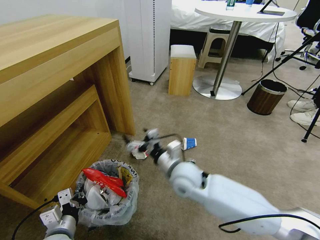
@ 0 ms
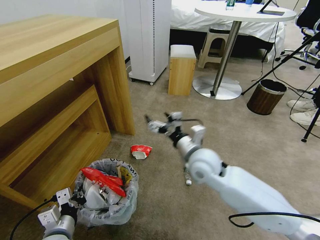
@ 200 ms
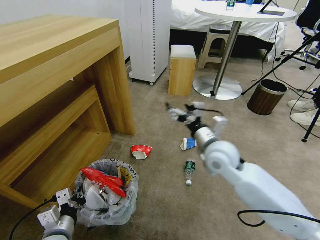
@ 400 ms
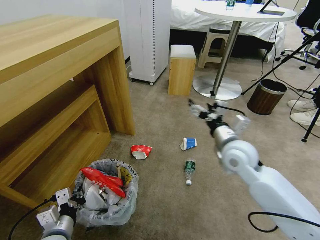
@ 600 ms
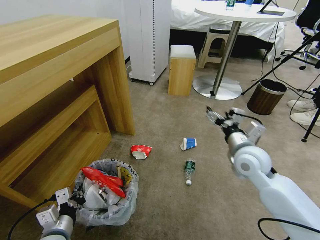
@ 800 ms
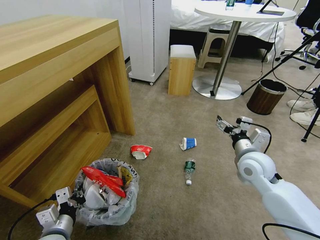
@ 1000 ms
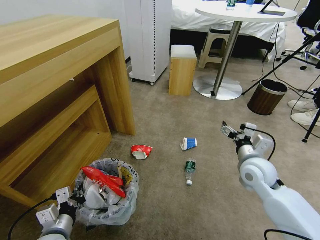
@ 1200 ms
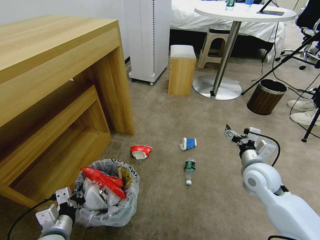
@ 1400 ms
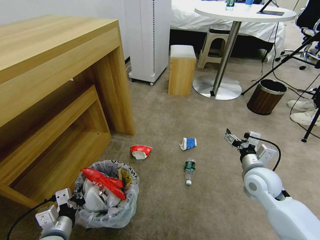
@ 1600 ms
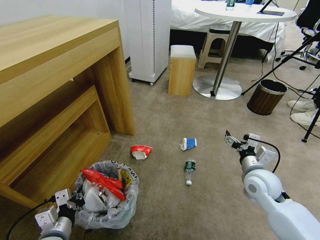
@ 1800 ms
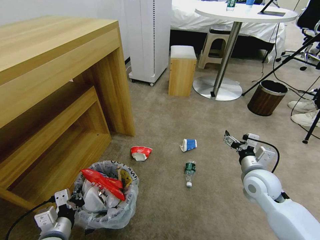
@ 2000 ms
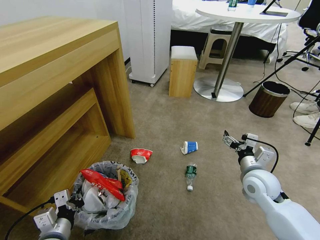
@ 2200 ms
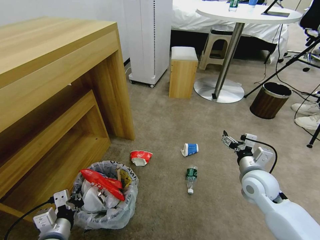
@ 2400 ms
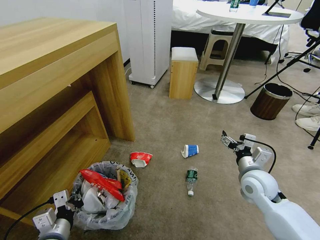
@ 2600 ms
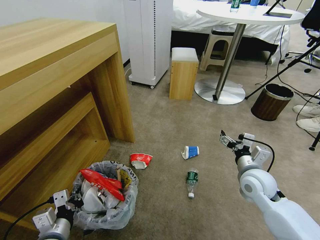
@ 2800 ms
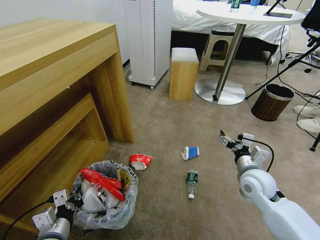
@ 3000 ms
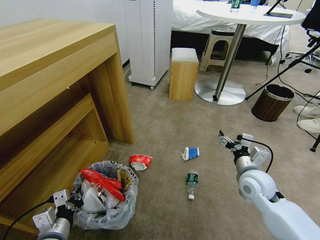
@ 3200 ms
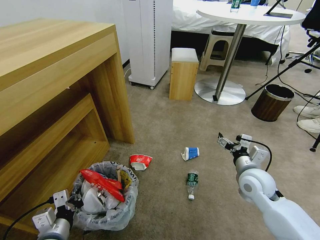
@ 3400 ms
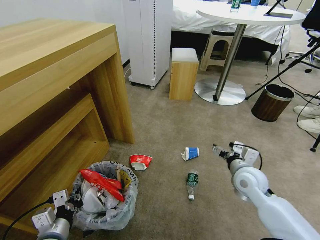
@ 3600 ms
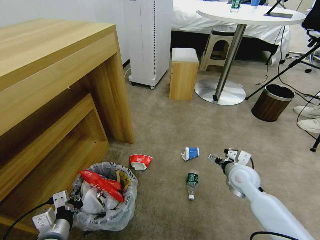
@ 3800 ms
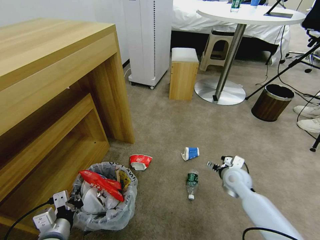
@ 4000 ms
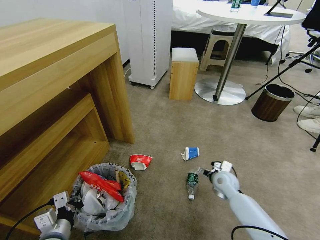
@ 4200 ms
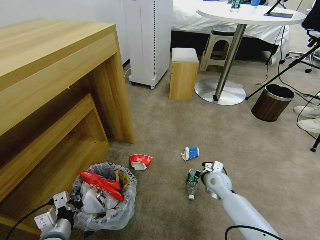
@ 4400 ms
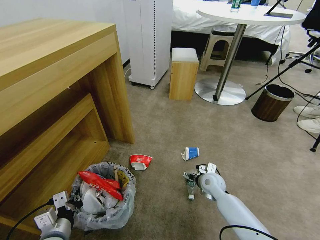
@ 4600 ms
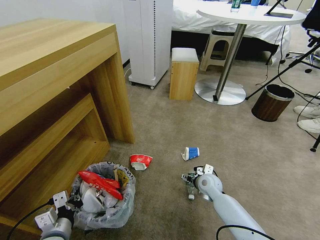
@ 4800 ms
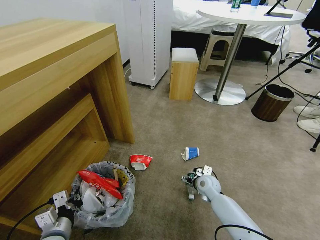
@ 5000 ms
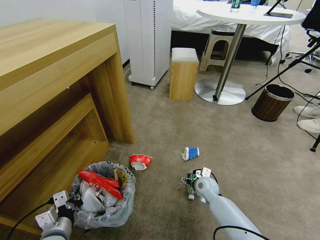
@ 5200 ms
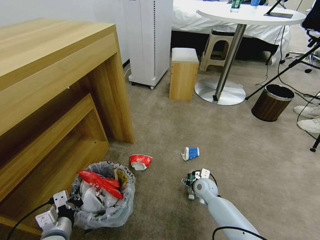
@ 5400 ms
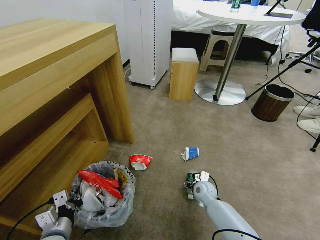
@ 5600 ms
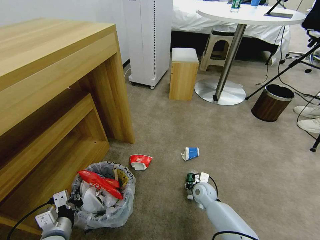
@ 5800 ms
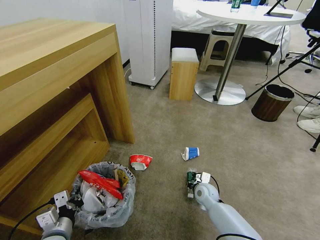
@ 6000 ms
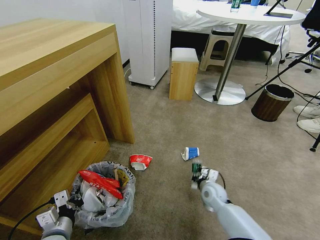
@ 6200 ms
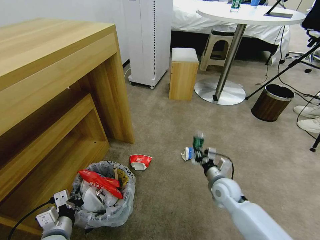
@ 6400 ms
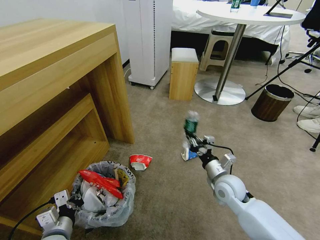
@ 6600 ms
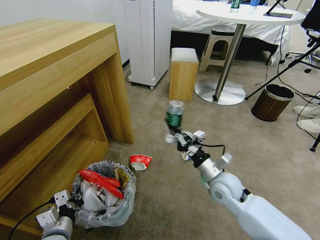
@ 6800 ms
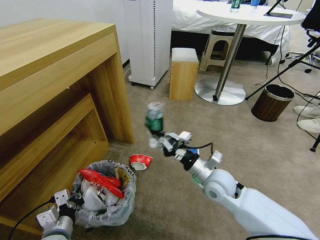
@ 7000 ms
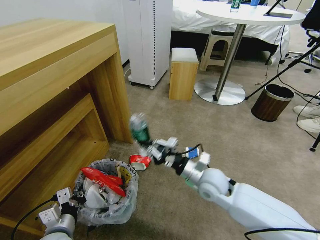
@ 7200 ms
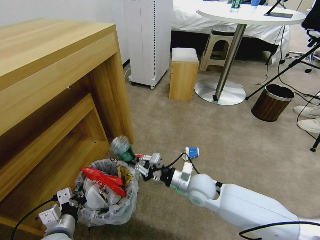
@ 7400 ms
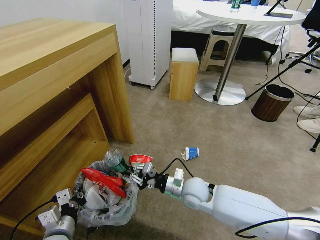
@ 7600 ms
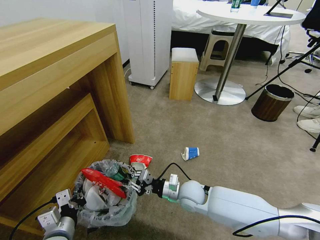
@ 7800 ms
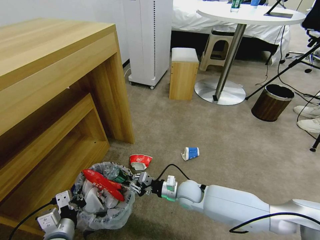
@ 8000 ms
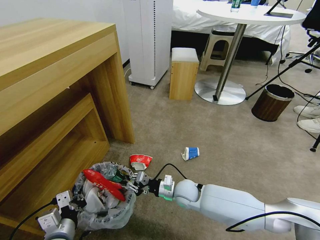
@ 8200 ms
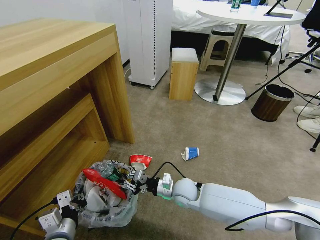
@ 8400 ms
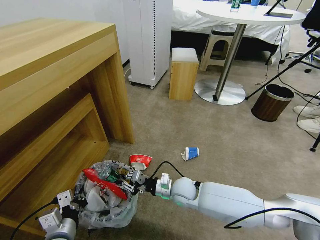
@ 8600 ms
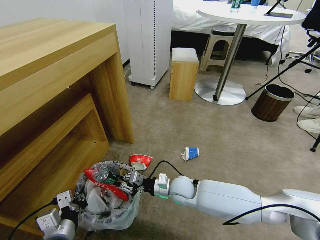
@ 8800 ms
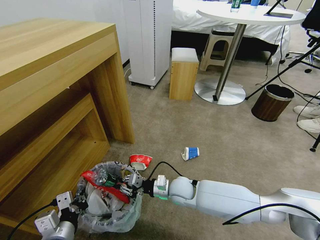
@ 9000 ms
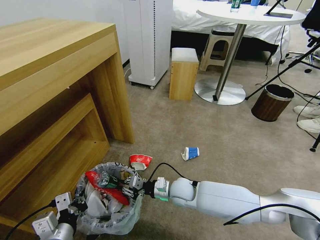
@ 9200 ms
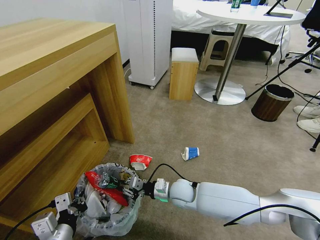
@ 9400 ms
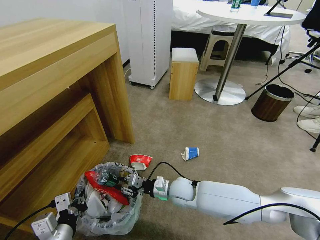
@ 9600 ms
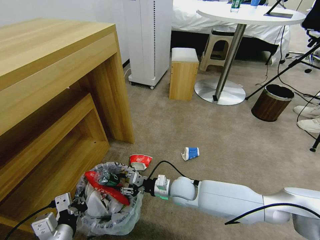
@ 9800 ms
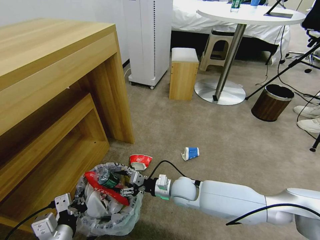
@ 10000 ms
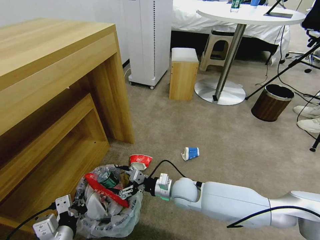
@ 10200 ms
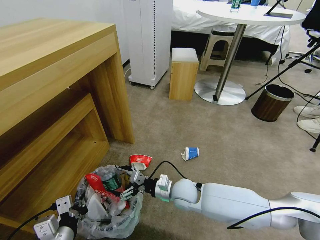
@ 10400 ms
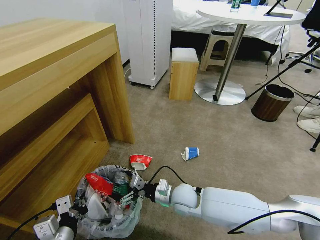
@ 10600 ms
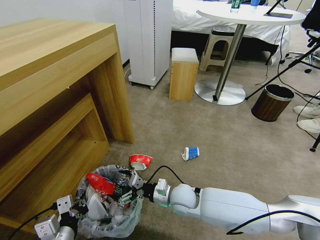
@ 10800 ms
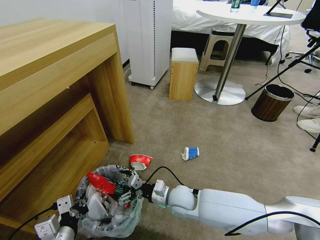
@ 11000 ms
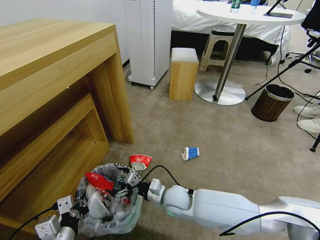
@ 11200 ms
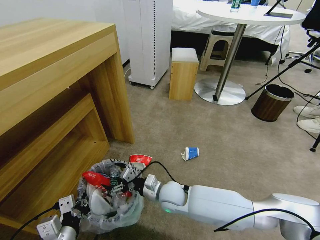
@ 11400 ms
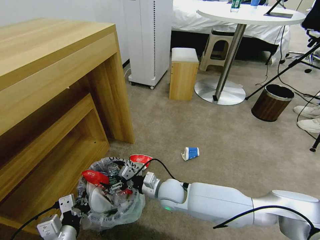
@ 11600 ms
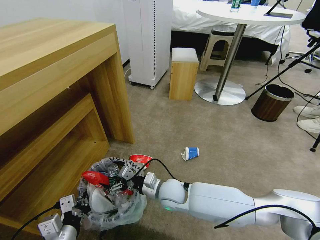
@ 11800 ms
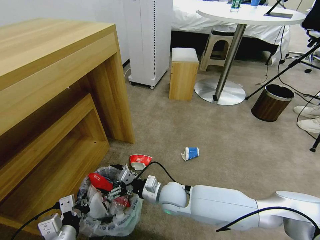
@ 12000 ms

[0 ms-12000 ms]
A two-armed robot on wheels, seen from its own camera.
Task of the whole recording: Pick up the trash bin and place the garbage on the floor into it.
0 ms to 1600 ms: The right gripper shifts some 25 cm to the right.
3000 ms to 4400 ms: The right gripper travels downward, to the left and forward by approximately 15 cm.
4400 ms to 6000 ms: The right gripper travels downward by roughly 5 cm, and closes its fingers.
6000 ms to 7600 ms: The right gripper goes some 15 cm upward and to the left.
7600 ms to 9000 ms: The right gripper ends up approximately 5 cm from where it was.
9000 ms to 10400 ms: The right gripper opens its fingers.
10400 ms to 12000 ms: The grippers move only a little.

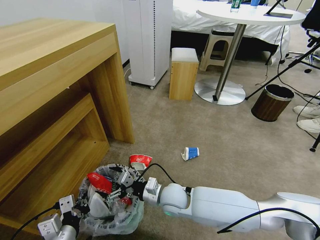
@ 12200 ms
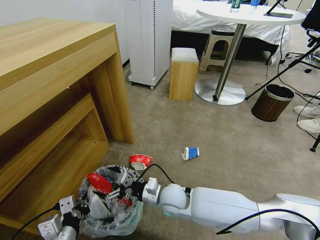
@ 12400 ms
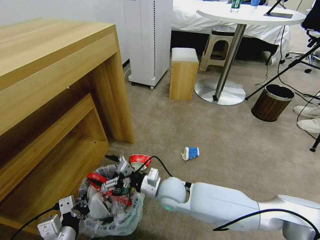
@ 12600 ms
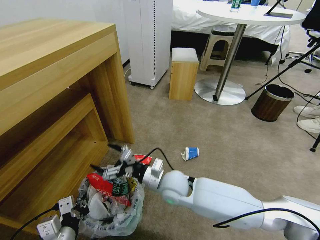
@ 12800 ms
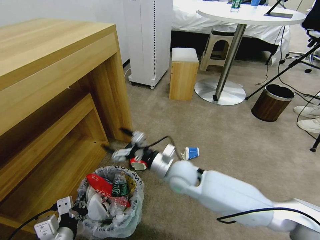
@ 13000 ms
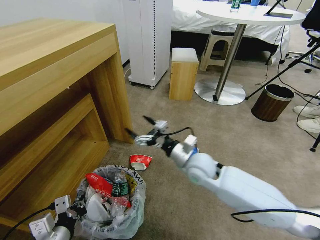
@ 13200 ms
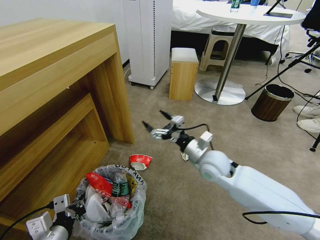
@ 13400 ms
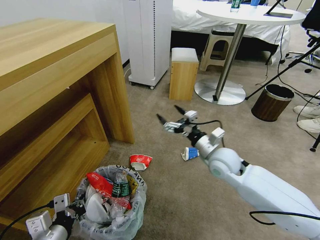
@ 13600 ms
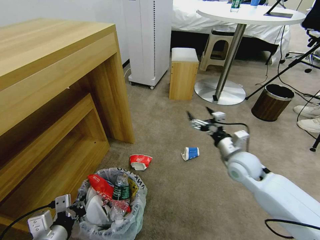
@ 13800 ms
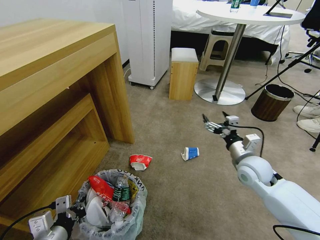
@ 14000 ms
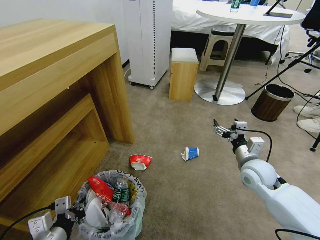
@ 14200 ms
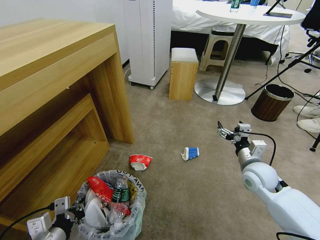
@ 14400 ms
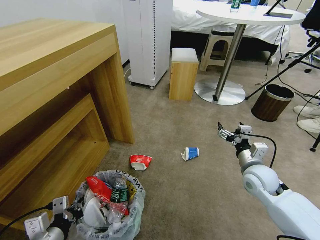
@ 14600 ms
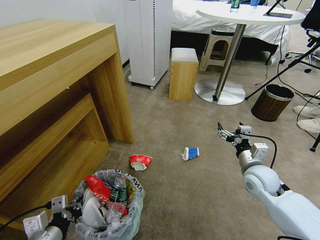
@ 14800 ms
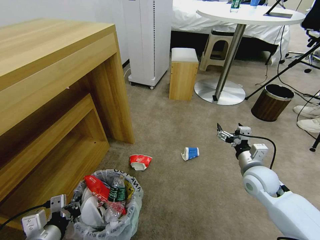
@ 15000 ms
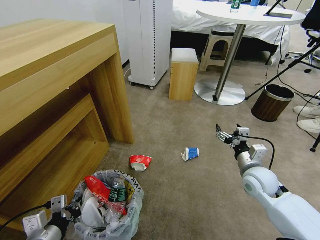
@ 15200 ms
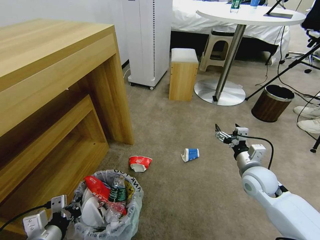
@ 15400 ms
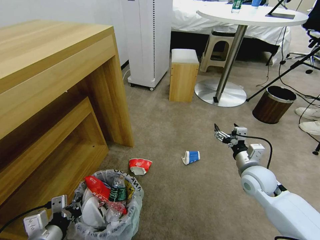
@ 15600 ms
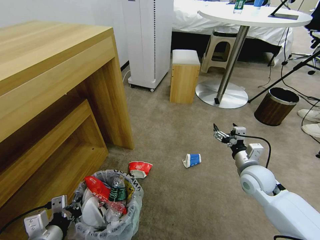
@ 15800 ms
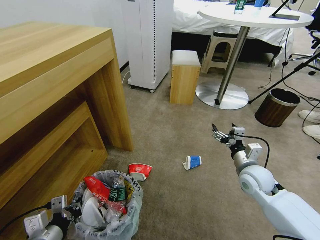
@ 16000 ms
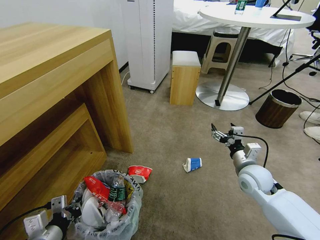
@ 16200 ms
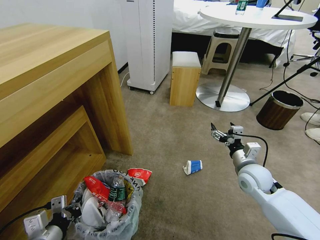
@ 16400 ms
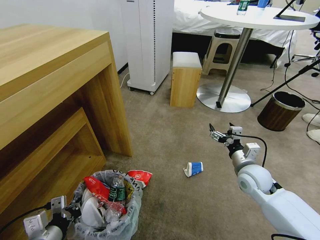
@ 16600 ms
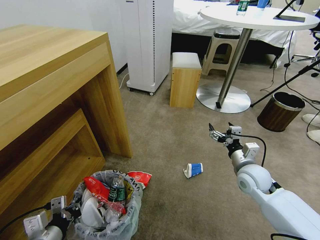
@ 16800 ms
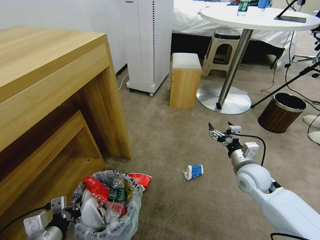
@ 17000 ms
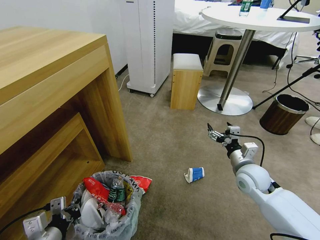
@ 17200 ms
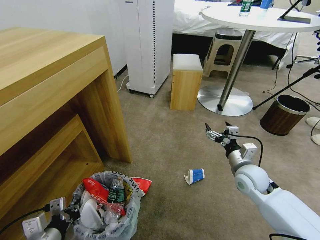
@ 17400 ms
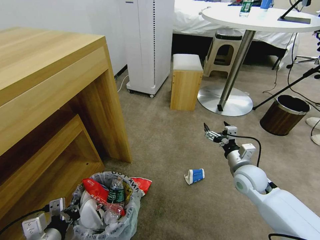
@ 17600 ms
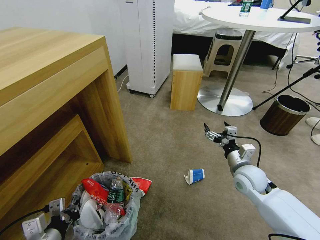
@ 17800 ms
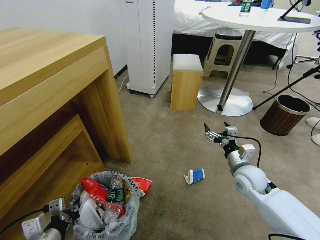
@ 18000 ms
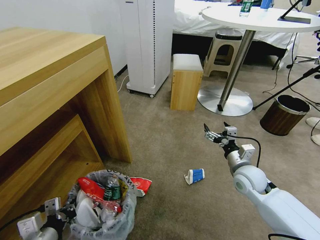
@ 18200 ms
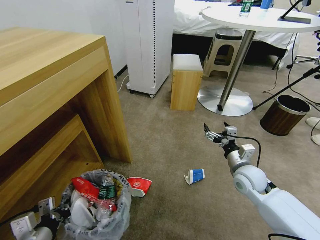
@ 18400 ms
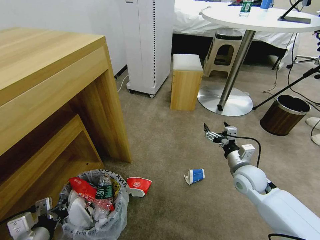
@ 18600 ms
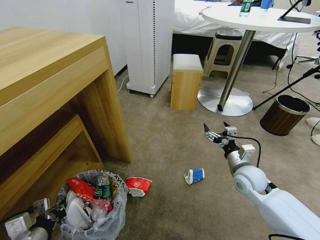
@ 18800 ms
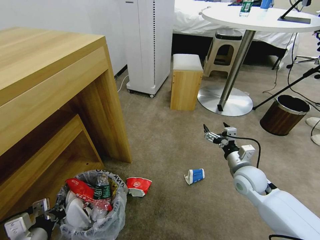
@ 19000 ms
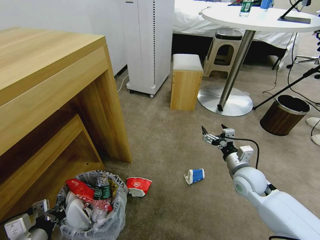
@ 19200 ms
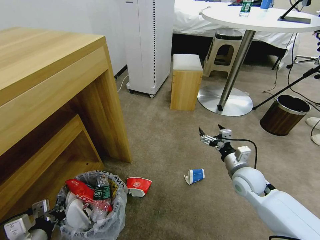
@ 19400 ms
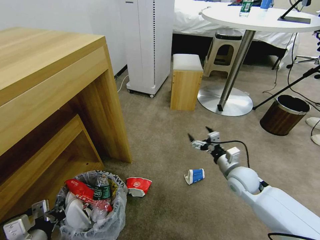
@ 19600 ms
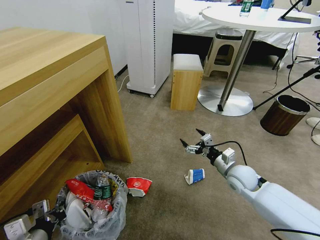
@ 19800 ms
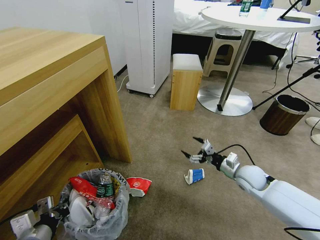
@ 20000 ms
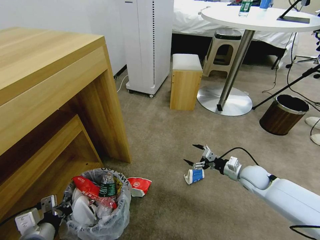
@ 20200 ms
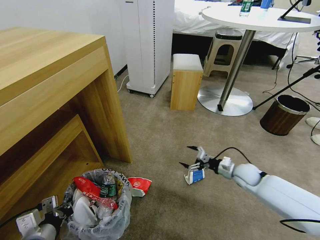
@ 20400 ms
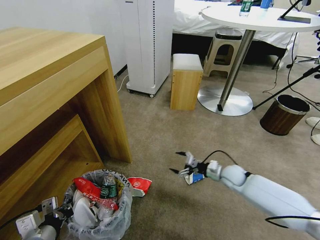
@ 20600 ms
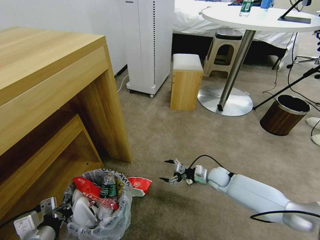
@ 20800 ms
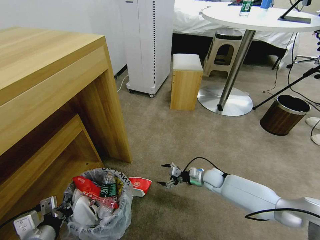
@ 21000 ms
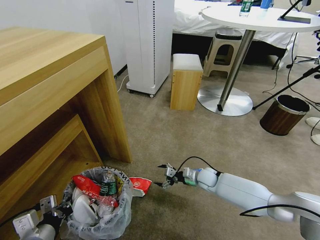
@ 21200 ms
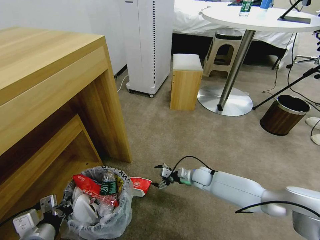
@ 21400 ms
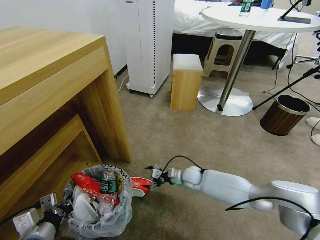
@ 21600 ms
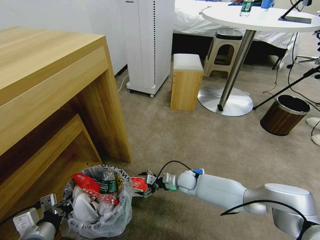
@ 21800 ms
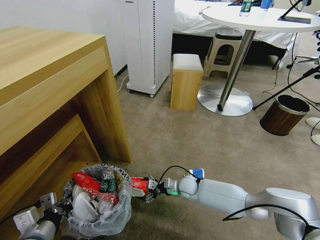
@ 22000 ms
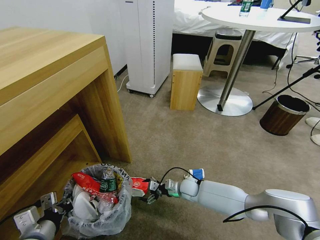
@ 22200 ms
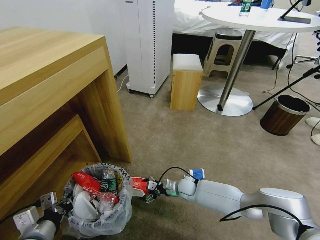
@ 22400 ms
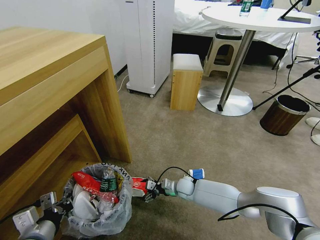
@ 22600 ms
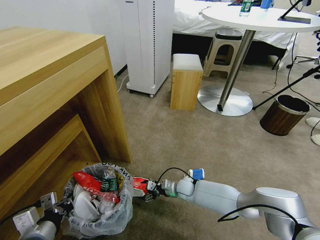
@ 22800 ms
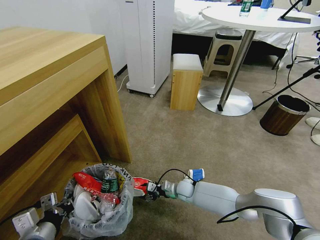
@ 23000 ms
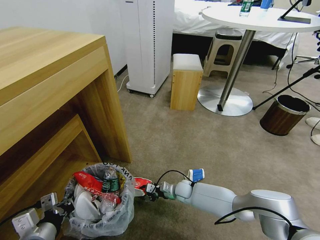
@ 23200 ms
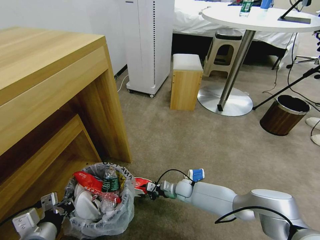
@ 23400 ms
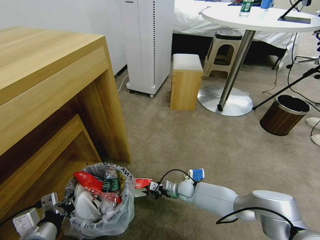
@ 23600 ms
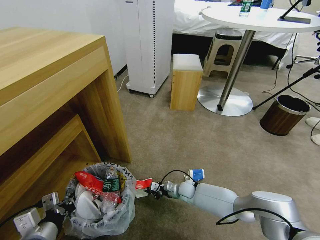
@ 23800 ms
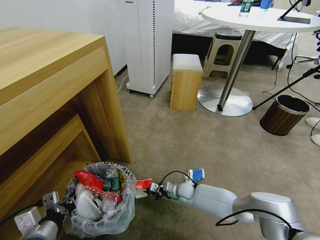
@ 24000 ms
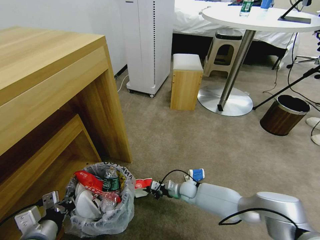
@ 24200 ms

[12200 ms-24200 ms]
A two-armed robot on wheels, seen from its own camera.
Task of the whole recording: Pick up the trash bin and place the garbage on the floor into it.
12200 ms to 13800 ms: The right gripper travels to the right and upward by some 25 cm.
13800 ms to 15200 ms: The right gripper moves to the right, some 10 cm.
19800 ms to 21200 ms: The right gripper shifts approximately 15 cm downward, to the left and forward.
21200 ms to 22600 ms: The right gripper moves to the left, about 10 cm.
22600 ms to 24200 ms: The right gripper closes up.
